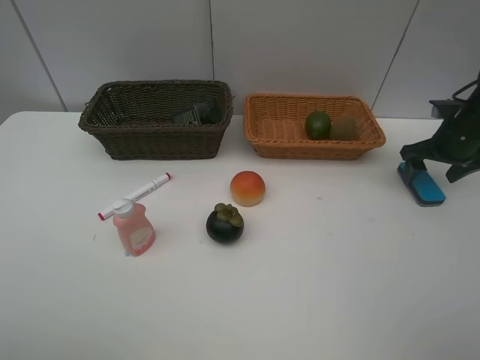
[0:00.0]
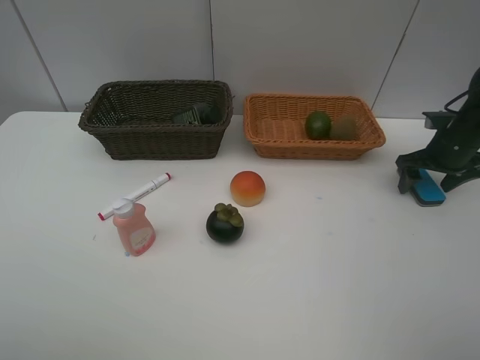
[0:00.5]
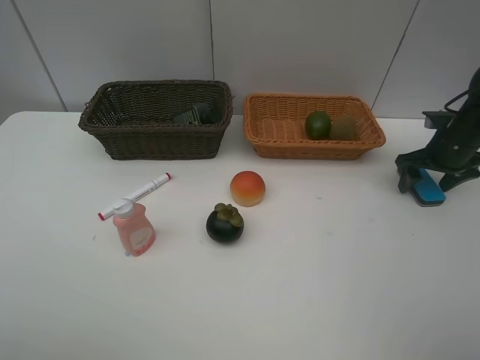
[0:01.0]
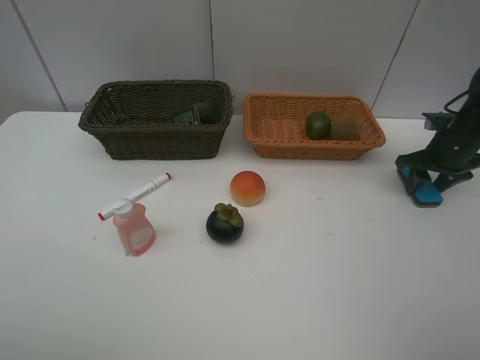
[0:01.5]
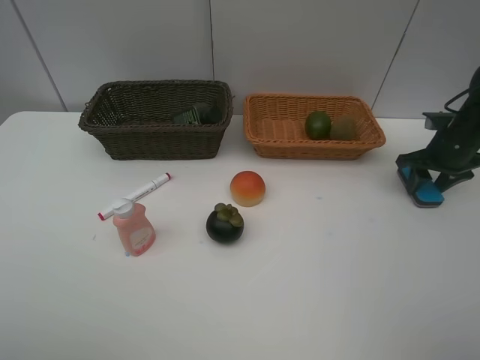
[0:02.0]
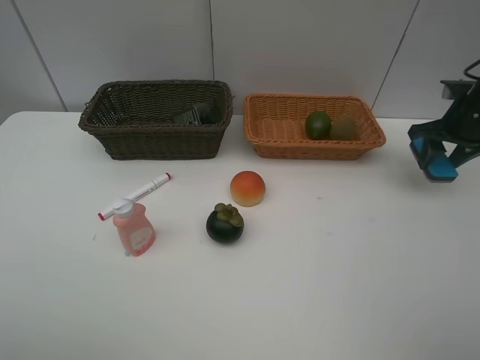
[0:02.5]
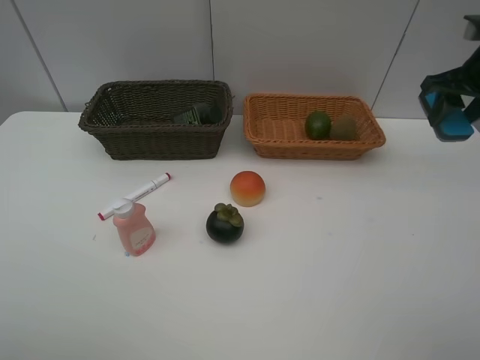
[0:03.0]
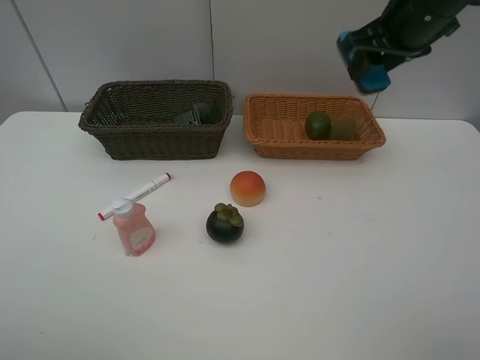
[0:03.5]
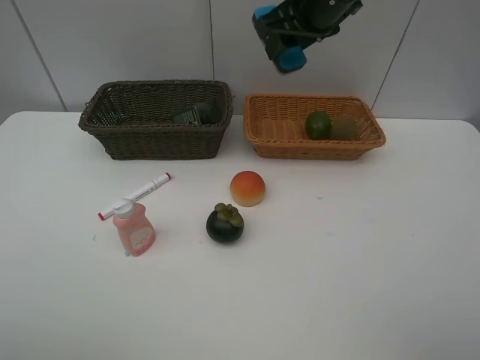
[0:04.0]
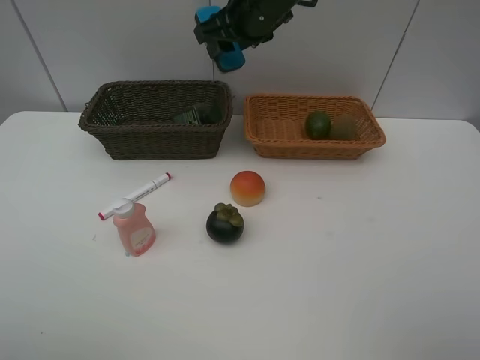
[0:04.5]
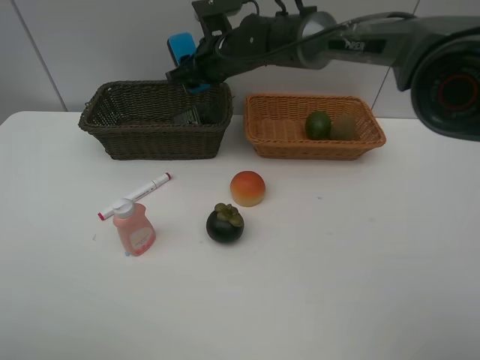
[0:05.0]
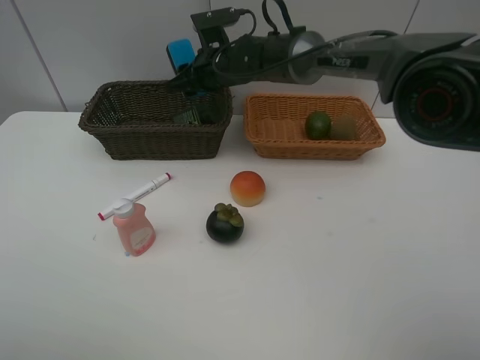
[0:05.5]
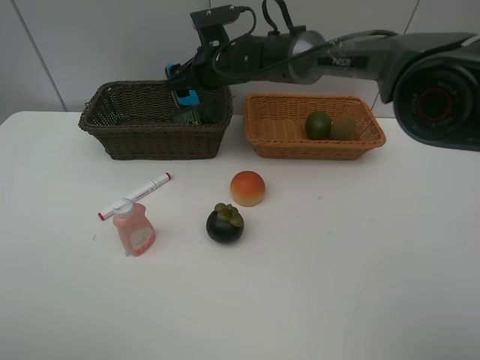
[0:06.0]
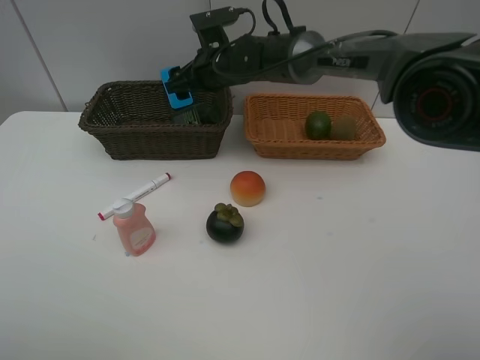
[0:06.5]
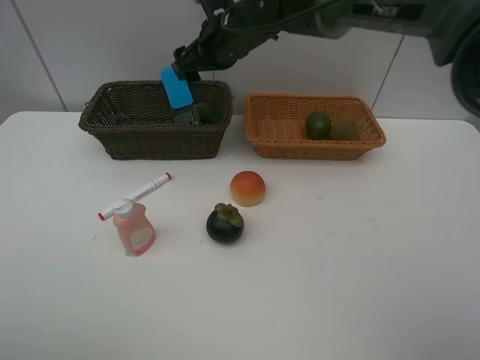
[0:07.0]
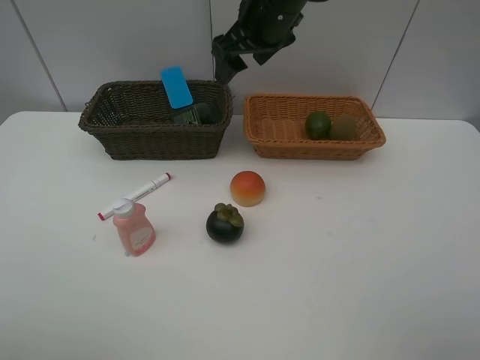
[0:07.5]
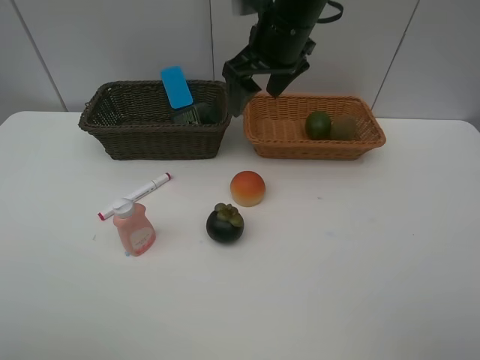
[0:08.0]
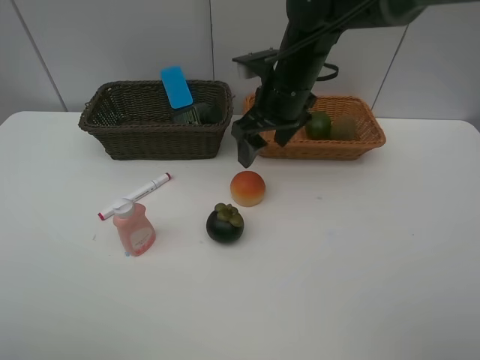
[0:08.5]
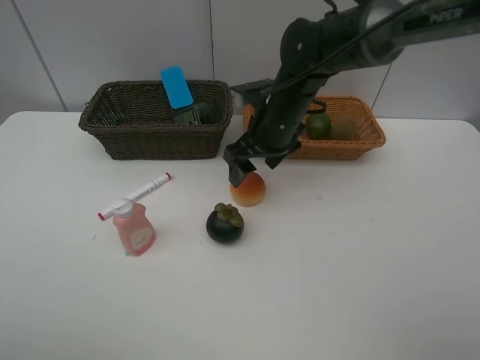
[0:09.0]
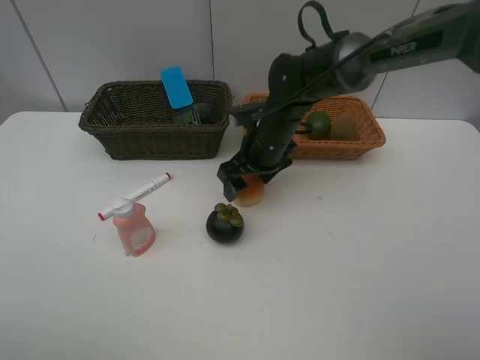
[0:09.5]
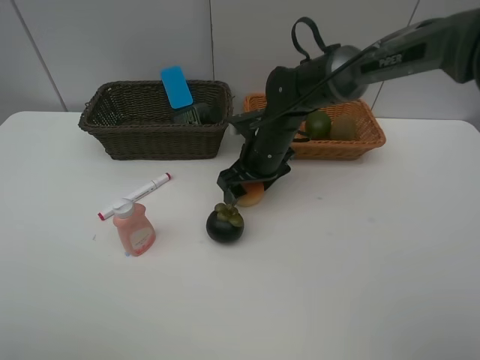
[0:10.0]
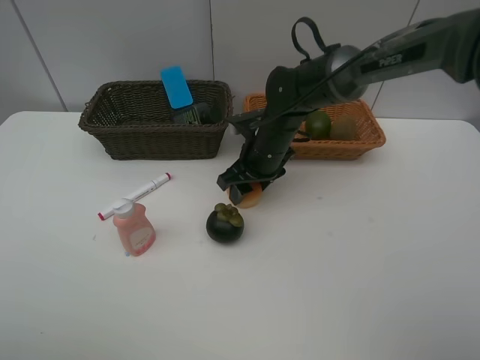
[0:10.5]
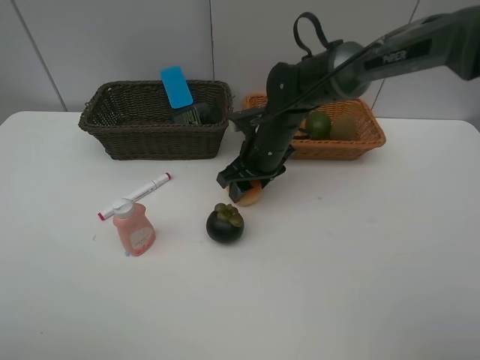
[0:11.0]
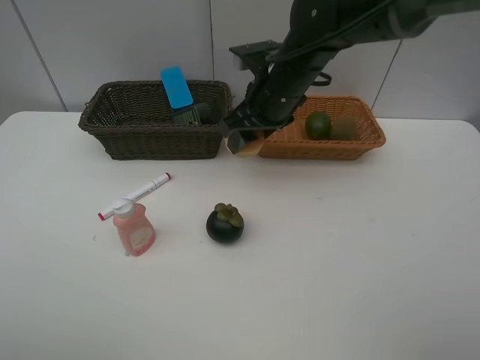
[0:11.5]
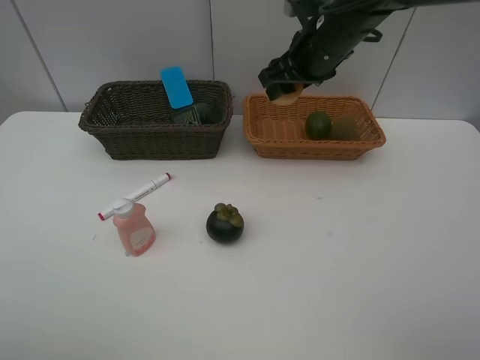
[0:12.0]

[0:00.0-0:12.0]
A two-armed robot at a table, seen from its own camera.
Task of the whole recording: Place multiple objects separately in different baskets.
Step, 0:00.0 to 0:02.0: Pick up blackboard eraser with right gripper.
Step, 0:02.5 to 0:06.0: Place the blackboard eraser in the dark basket with right gripper.
Step, 0:06.5 to 0:11.0: Pick up egg yolk pastry with right gripper.
0:00.0 to 0:02.0: The right gripper closes up.
0:02.0 to 0:04.0: The right gripper is displaced to the left and upward by some 35 cm.
0:04.0 to 0:06.0: The right gripper is displaced downward, to the left and forward by about 20 cm, and opens.
0:06.0 to 0:08.0: The right gripper travels upward, backward and to the right by about 15 cm.
0:08.0 to 0:10.0: The right gripper moves downward, approximately 20 cm.
0:10.0 to 0:12.0: The right gripper is displaced upward and to the right by approximately 15 cm, and closes its fingers.

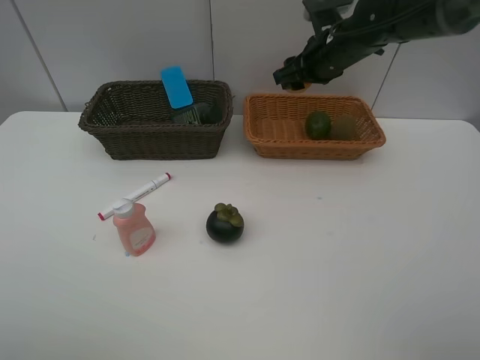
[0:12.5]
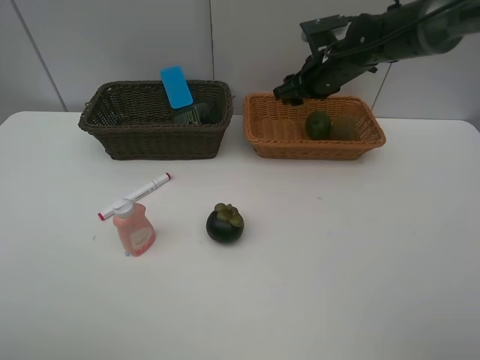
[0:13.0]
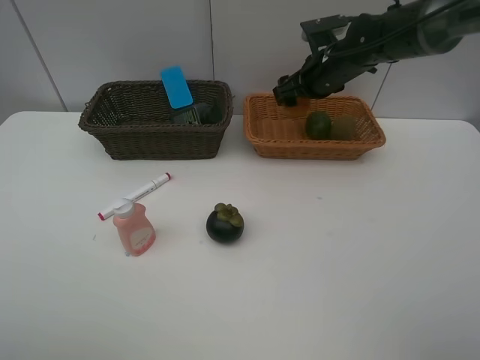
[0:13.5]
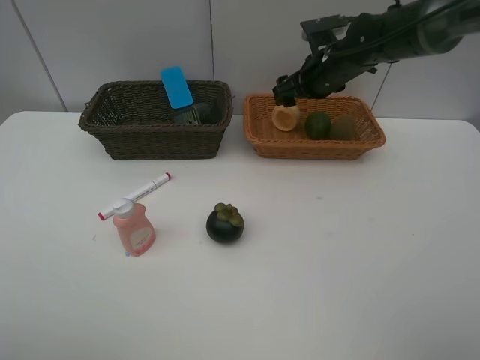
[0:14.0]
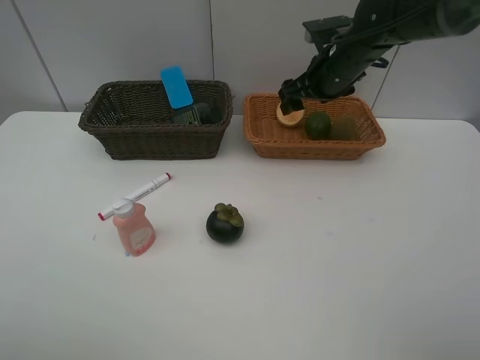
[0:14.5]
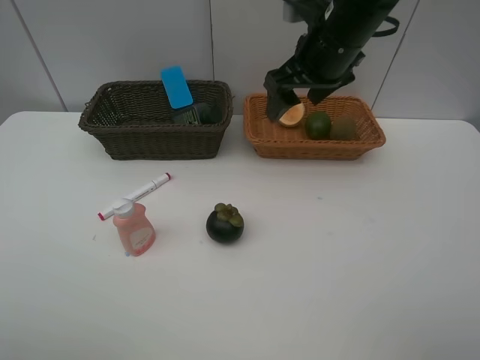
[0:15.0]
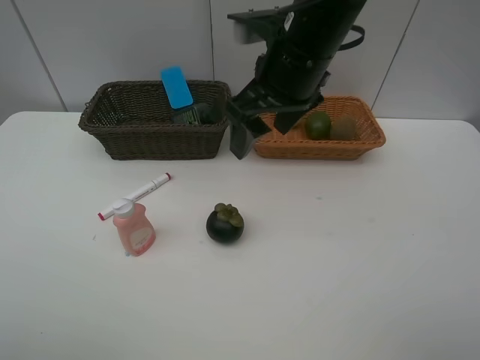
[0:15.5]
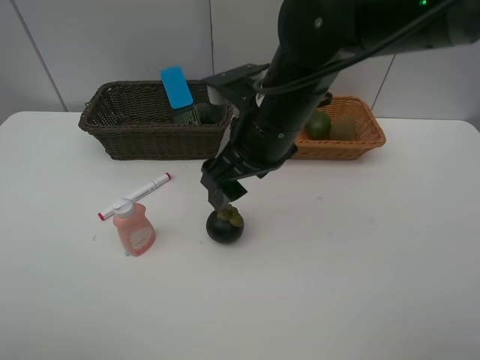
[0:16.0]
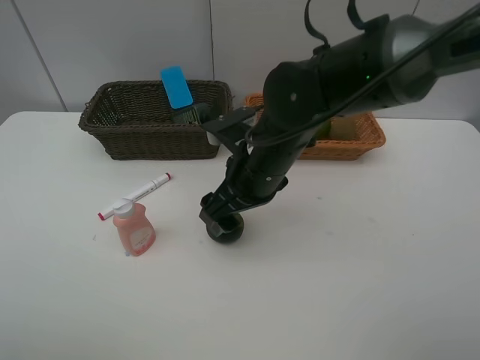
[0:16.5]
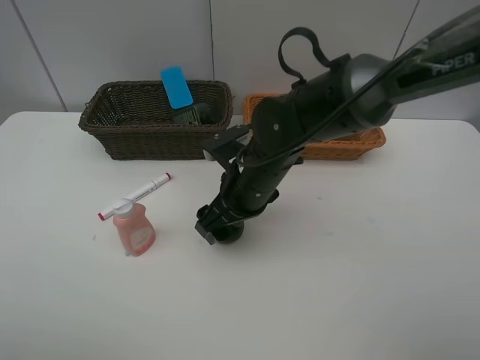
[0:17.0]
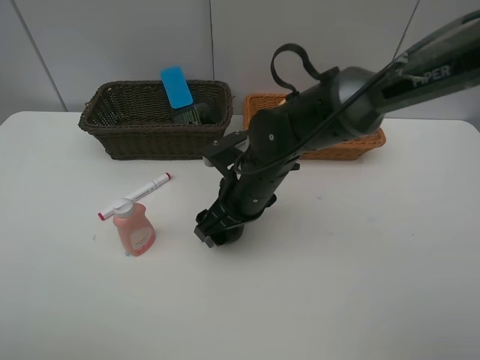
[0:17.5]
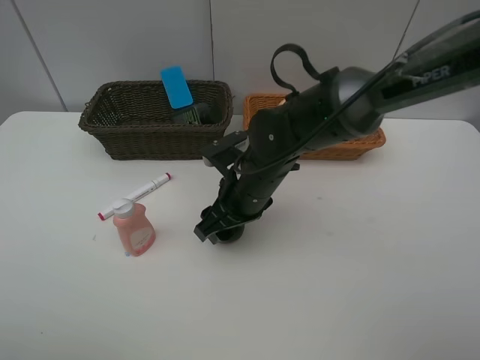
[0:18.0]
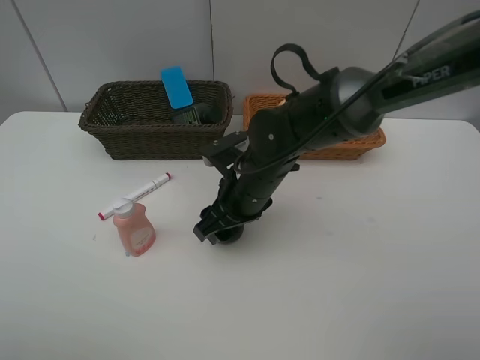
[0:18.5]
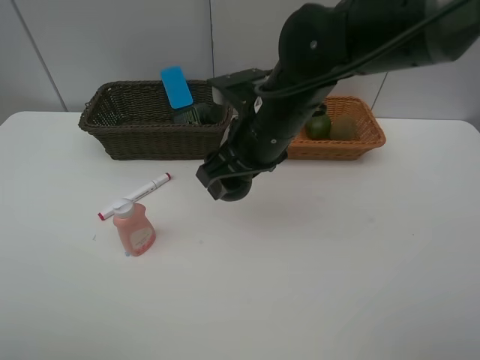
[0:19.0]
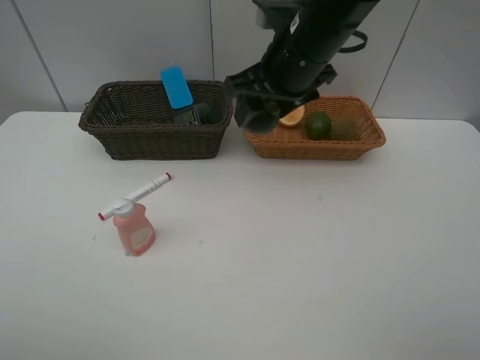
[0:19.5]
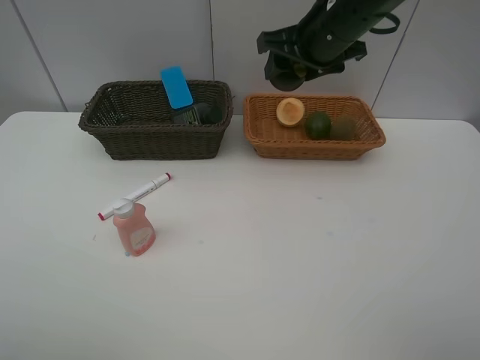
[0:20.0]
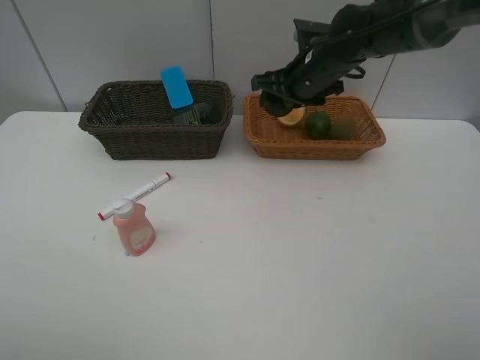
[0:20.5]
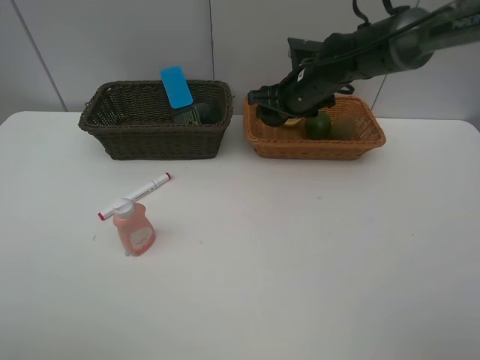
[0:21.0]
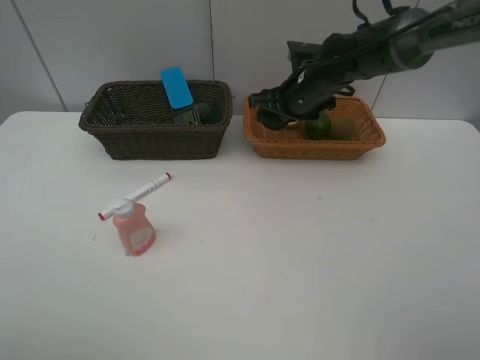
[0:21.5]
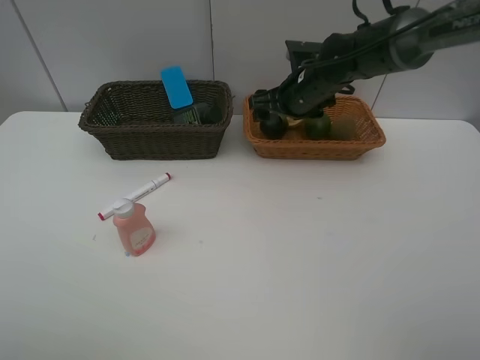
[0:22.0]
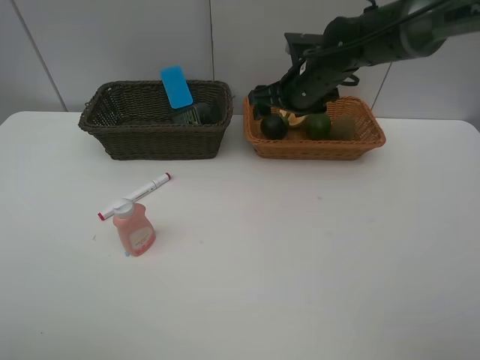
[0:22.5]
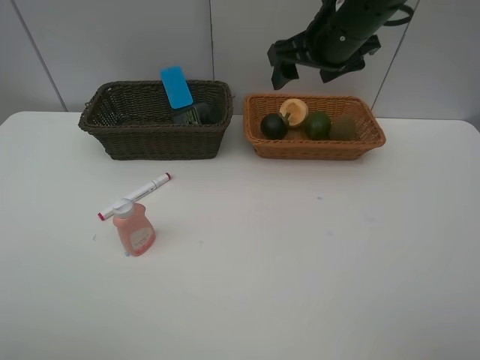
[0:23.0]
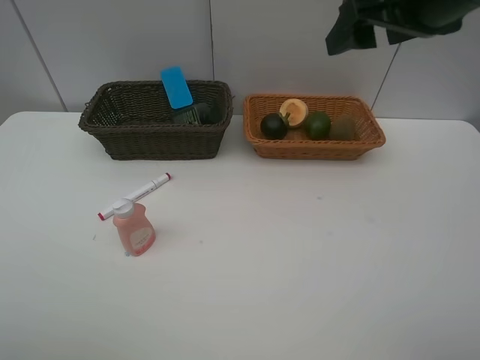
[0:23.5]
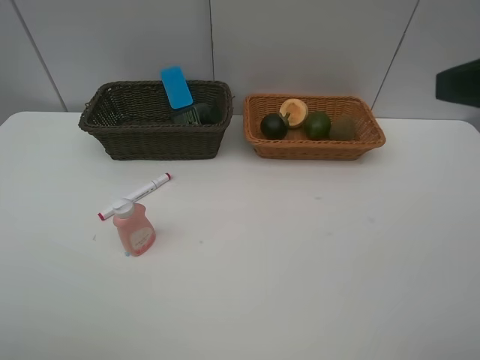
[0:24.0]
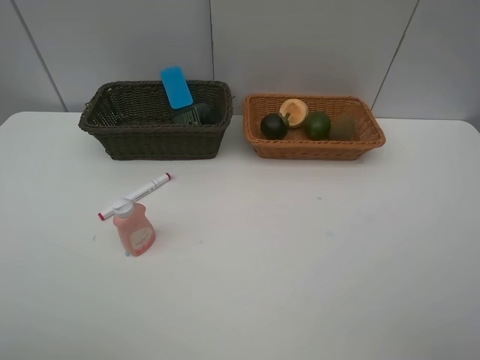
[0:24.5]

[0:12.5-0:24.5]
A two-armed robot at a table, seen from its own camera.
Task of the whole recording: Place multiple objects separately in different baskets.
Step, 0:14.0 to 0:18.5: Pick up the mangosteen with right gripper.
Step, 0:19.0 to 0:22.5: Place the mangosteen in the light basket with right gripper.
0:12.5 to 0:14.5: The right gripper opens its fingers.
0:14.5 to 0:16.5: The right gripper is displaced backward and to the left by some 20 cm.
0:16.5 to 0:18.5: The right gripper closes.
0:18.5 to 0:20.5: The right gripper moves forward, to the right and upward, approximately 20 cm.
0:20.5 to 0:22.5: The right gripper opens its fingers.
0:22.5 to 0:24.5: The right gripper heads backward and to the right, covering about 40 cm.

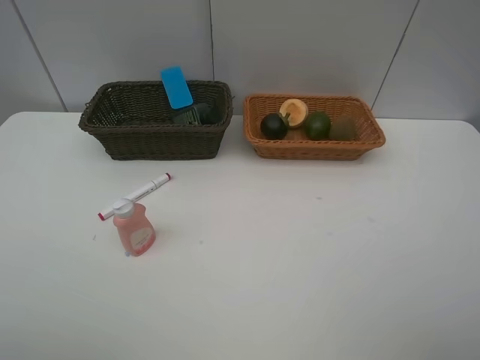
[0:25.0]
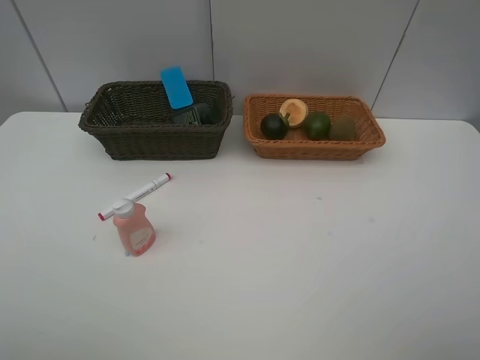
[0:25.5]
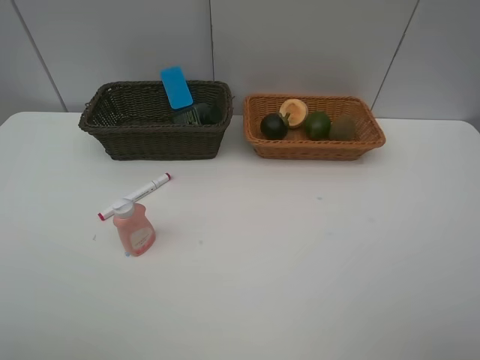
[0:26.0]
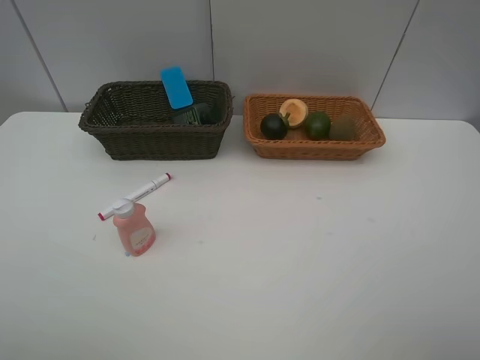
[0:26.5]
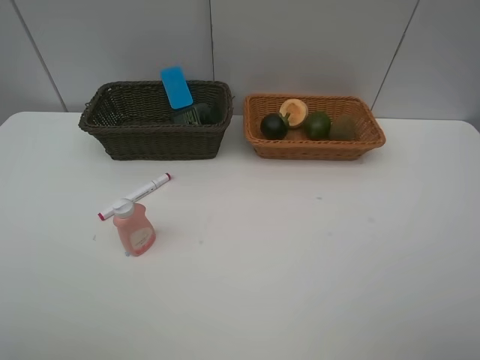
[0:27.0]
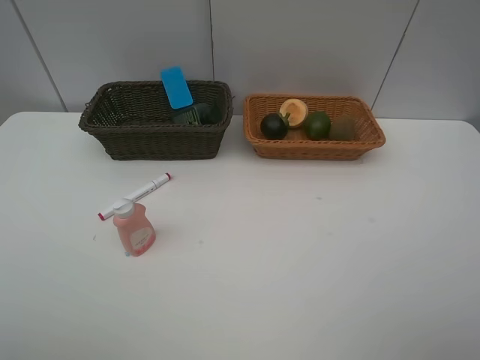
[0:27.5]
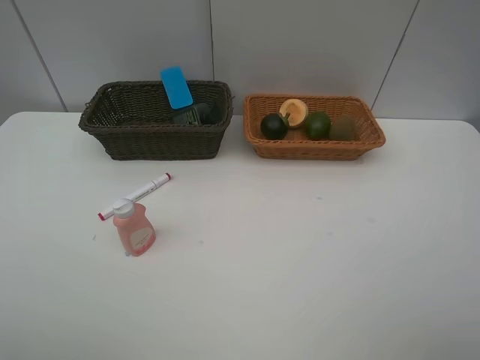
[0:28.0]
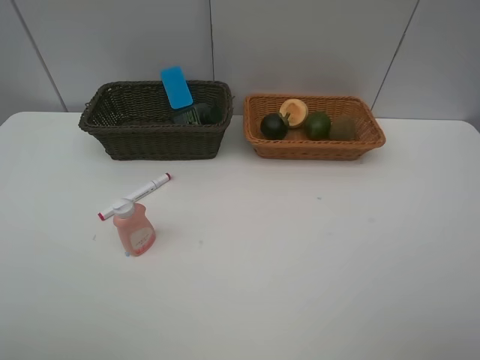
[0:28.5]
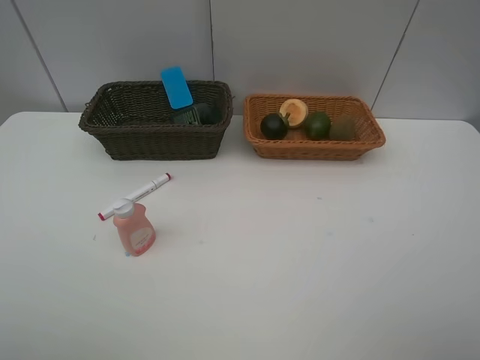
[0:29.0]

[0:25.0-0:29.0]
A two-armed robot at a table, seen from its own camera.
Task of the whole recording: Place multiple objects separately in different baskets.
0:27.0 to 0:29.0: Both grippers stay put.
